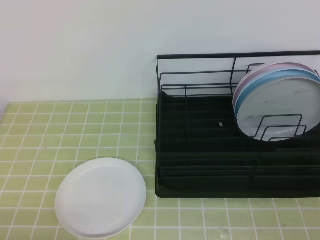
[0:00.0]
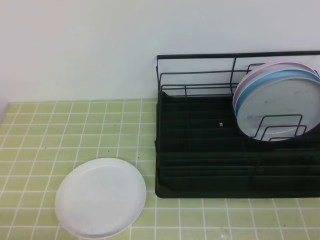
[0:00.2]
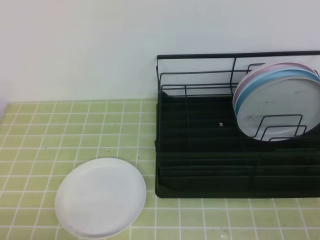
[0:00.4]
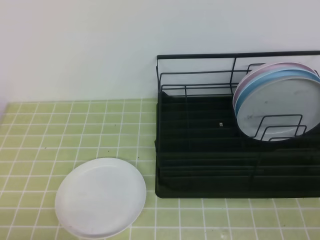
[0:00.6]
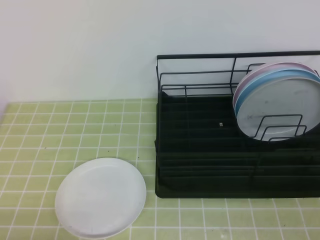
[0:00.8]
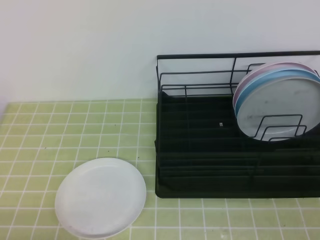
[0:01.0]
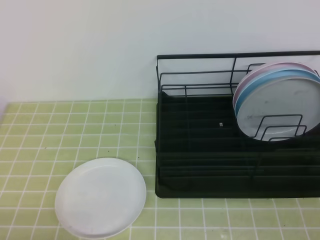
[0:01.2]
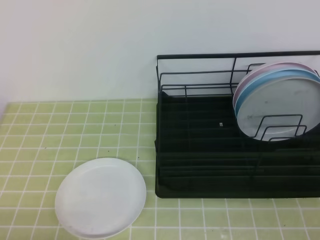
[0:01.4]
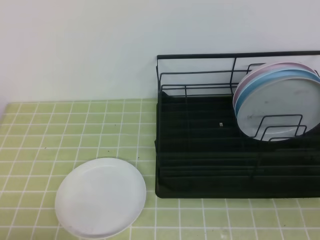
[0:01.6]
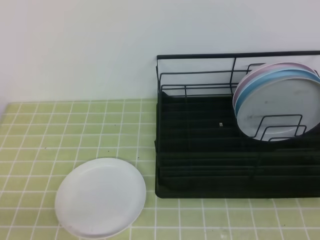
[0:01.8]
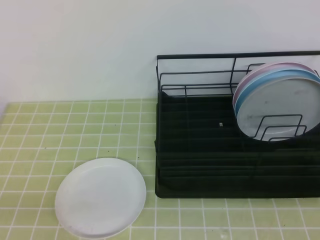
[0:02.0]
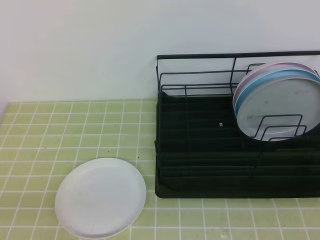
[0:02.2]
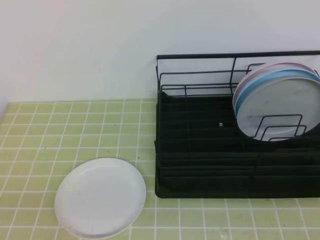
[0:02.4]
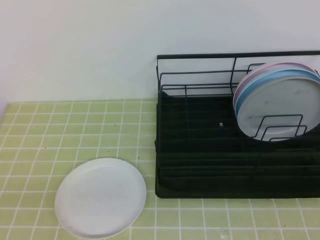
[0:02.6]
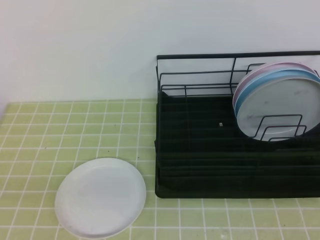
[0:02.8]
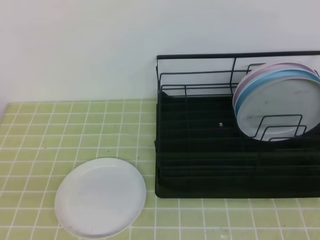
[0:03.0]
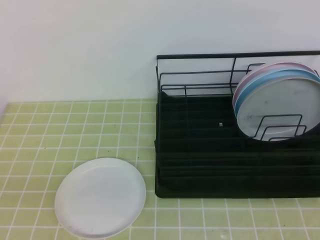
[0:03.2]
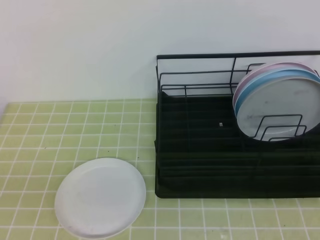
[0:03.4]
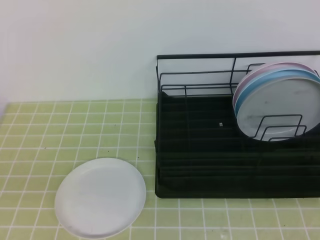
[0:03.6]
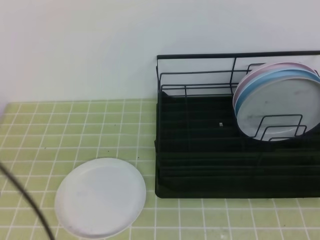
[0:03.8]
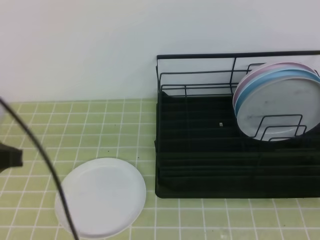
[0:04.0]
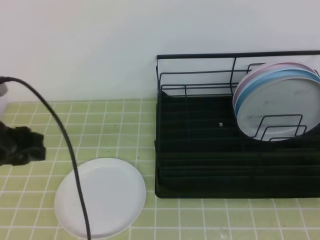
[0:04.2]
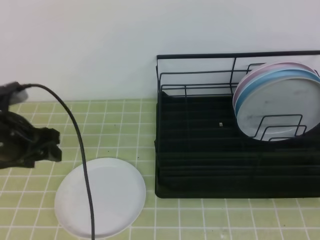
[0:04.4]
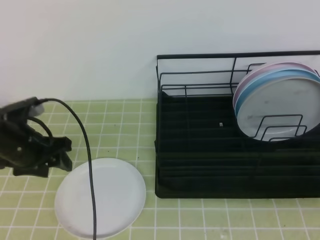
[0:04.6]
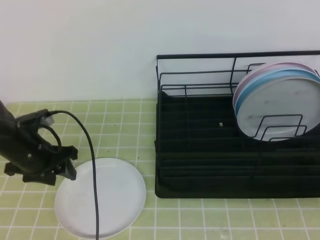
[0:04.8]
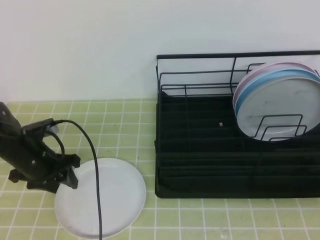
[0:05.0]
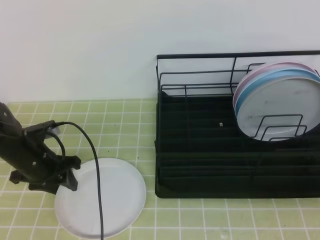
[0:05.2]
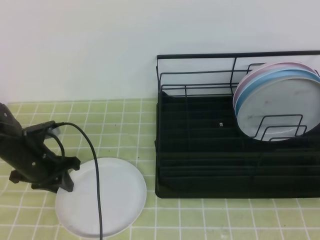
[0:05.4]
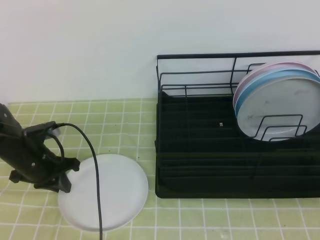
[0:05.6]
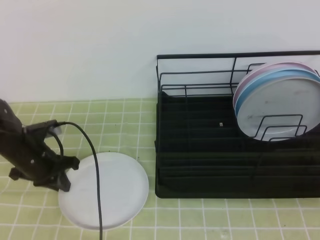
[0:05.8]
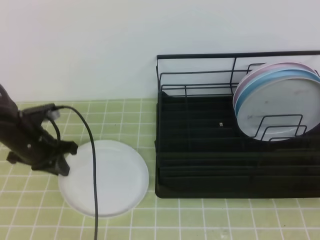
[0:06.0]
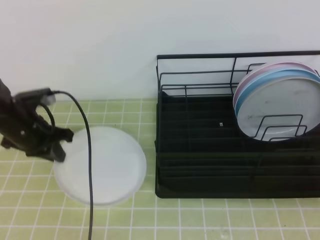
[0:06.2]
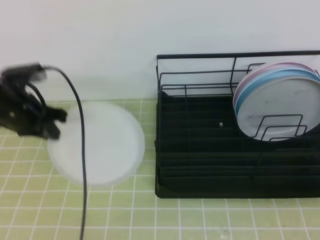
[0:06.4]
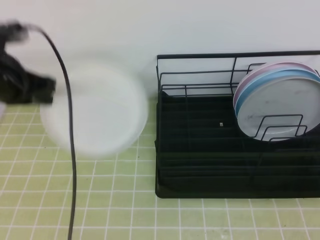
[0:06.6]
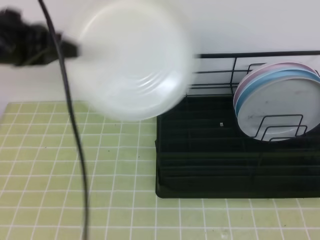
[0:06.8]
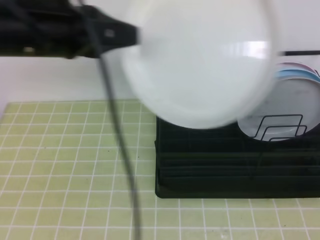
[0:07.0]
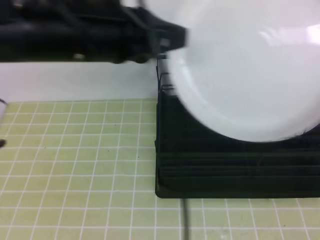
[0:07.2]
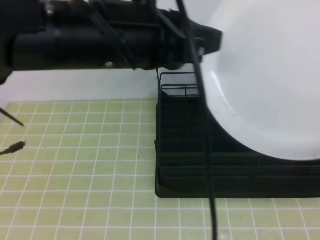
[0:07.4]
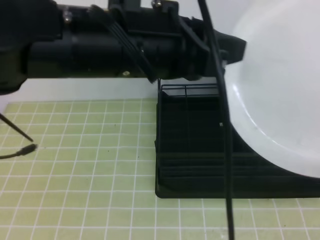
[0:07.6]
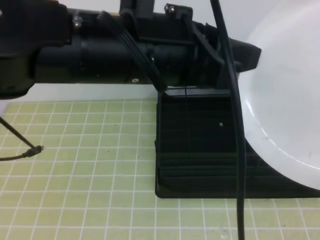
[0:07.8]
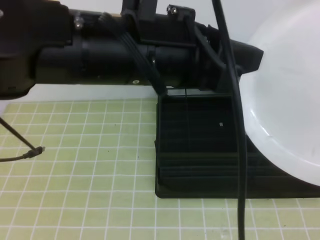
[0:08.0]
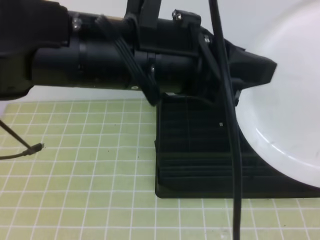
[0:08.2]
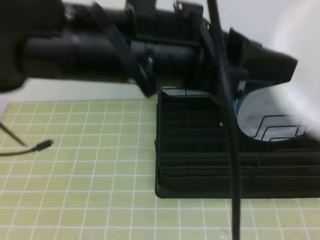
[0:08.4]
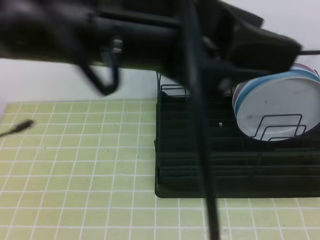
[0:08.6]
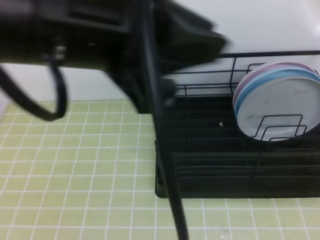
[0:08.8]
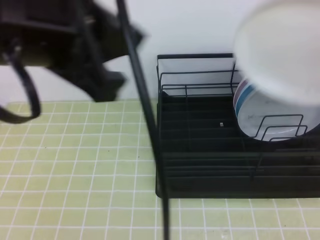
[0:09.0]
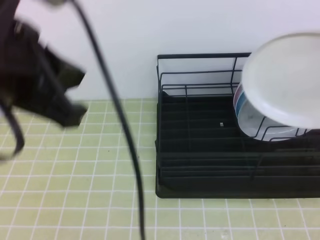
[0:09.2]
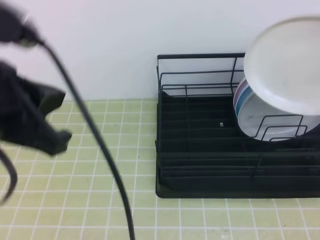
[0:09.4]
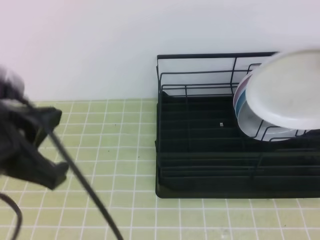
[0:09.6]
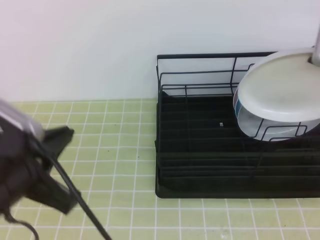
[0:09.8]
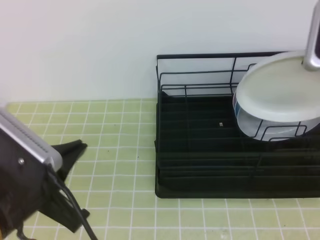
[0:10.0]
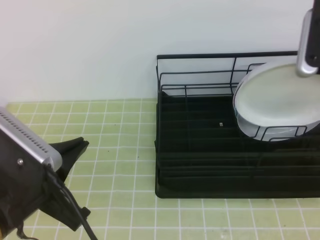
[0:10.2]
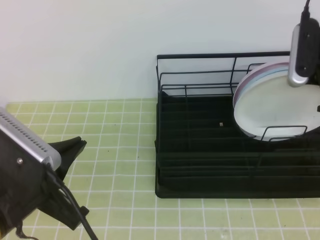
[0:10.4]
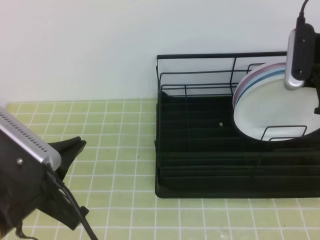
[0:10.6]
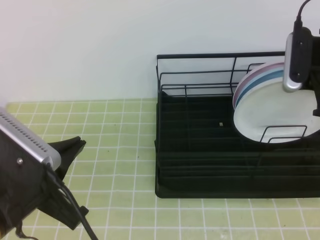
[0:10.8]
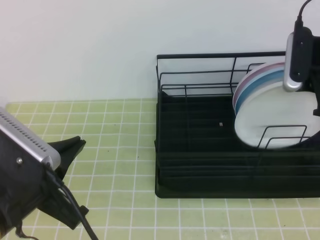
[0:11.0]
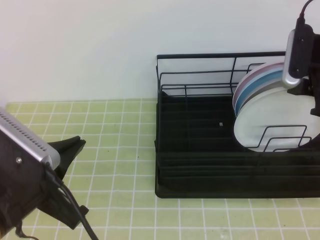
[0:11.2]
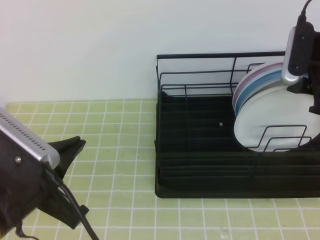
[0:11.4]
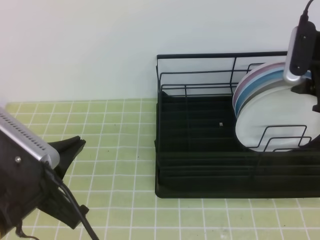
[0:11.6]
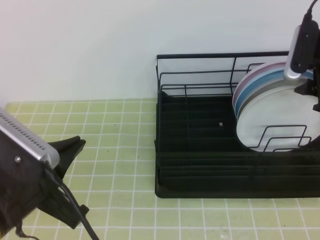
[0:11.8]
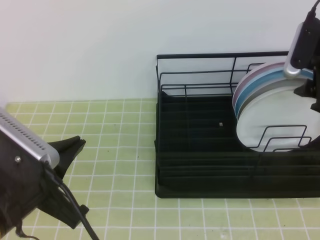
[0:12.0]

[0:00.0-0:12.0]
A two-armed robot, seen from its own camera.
Step, 0:00.0 to 0:04.6: Left grab the white plate.
Step, 0:06.8 to 0:09.6: Right place it at the front of the shelf.
0:03.0 to 0:04.4: The left gripper travels forward by roughly 25 cm, and opens up.
0:04.4 to 0:06.0: The left gripper goes about 10 cm downward and forward, and closes its fingers.
0:06.0 to 0:07.6: The left gripper heads upward, to the right and backward, covering roughly 35 cm; the right gripper goes approximately 5 cm upward, and opens up.
0:07.6 to 0:09.0: The left gripper moves to the left and backward, approximately 10 cm, and opens and closes again, while the right gripper is displaced forward and upward by roughly 15 cm, and closes its fingers.
0:09.0 to 0:10.4: The right gripper shifts approximately 15 cm forward and downward, while the left gripper travels downward by about 15 cm.
0:10.4 to 0:12.0: The right gripper opens.

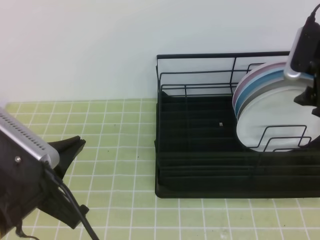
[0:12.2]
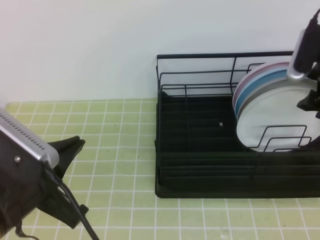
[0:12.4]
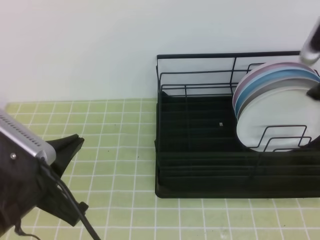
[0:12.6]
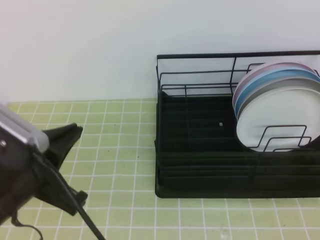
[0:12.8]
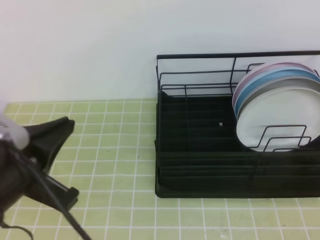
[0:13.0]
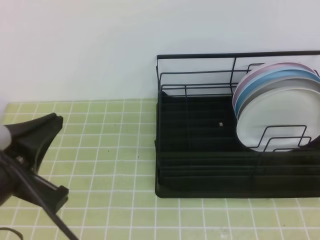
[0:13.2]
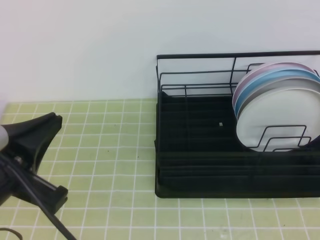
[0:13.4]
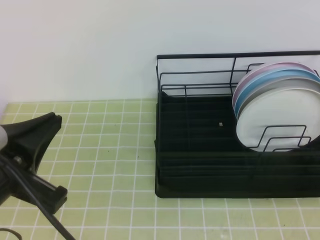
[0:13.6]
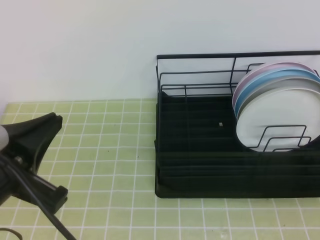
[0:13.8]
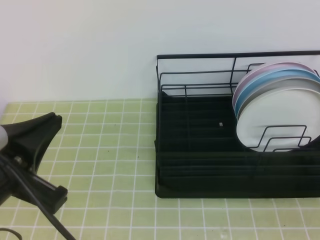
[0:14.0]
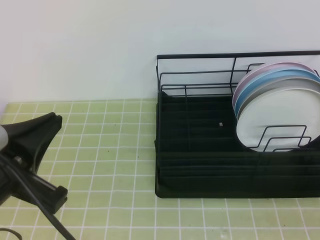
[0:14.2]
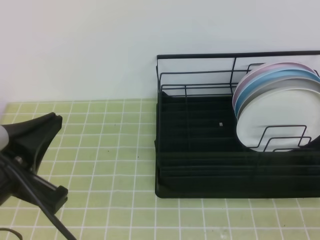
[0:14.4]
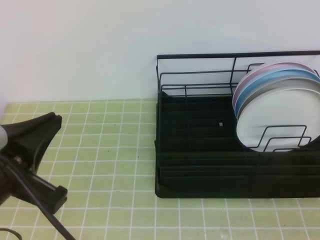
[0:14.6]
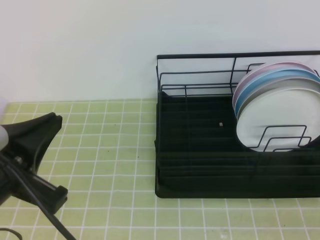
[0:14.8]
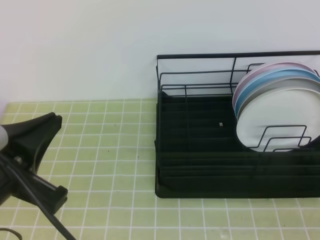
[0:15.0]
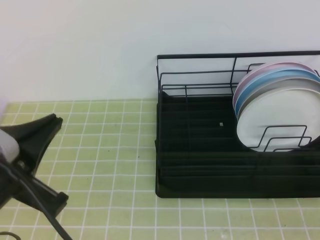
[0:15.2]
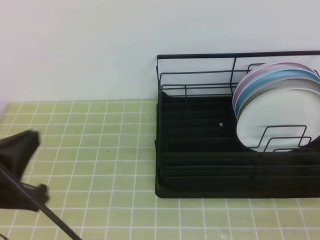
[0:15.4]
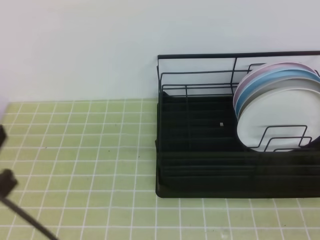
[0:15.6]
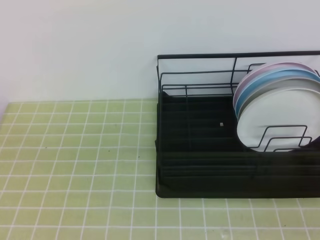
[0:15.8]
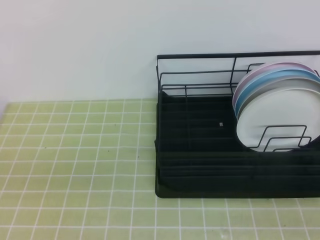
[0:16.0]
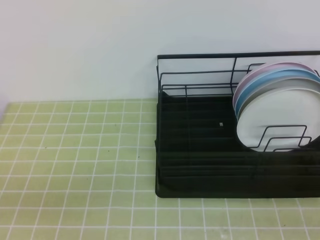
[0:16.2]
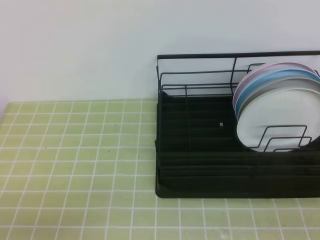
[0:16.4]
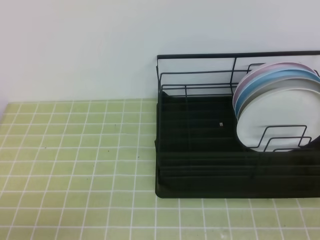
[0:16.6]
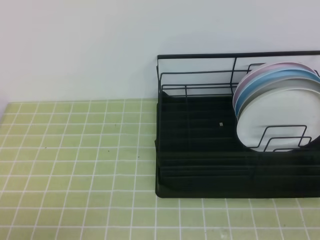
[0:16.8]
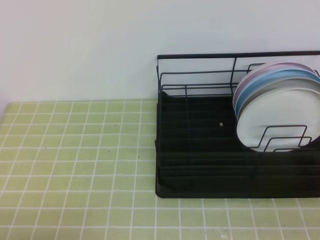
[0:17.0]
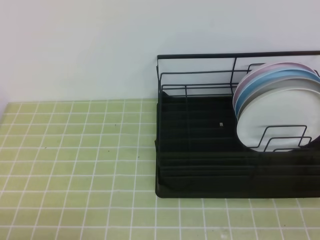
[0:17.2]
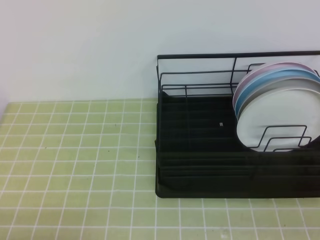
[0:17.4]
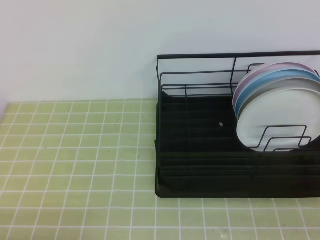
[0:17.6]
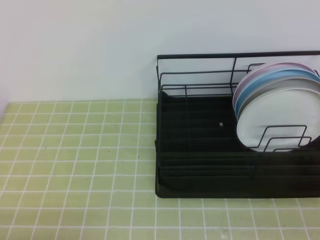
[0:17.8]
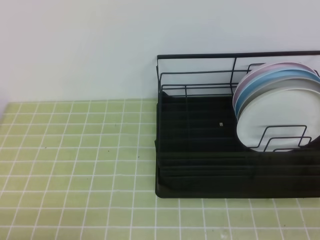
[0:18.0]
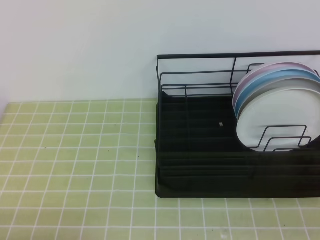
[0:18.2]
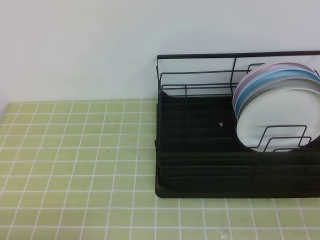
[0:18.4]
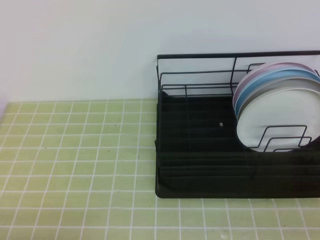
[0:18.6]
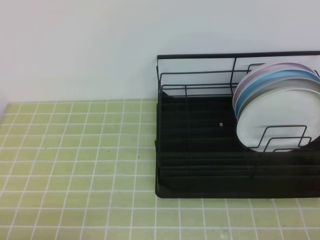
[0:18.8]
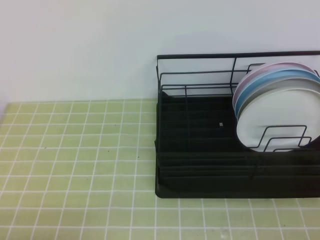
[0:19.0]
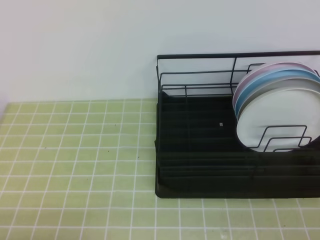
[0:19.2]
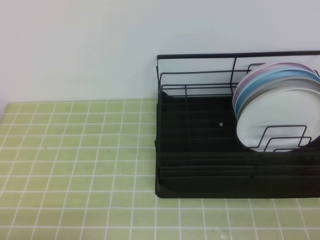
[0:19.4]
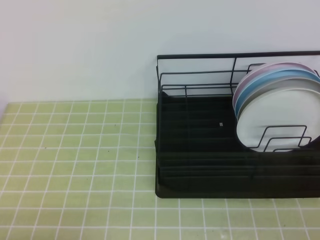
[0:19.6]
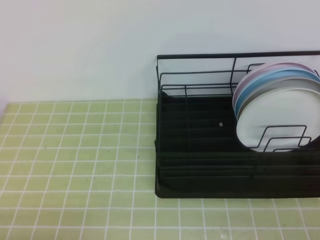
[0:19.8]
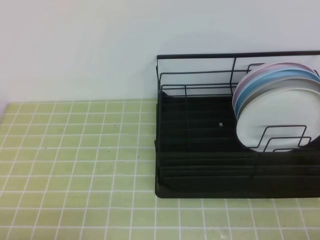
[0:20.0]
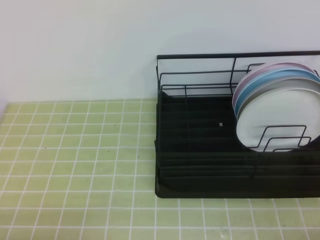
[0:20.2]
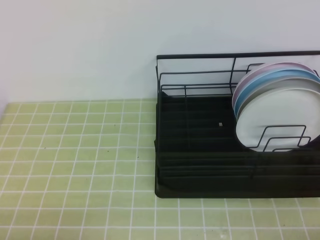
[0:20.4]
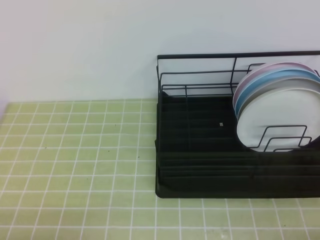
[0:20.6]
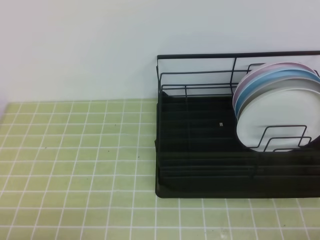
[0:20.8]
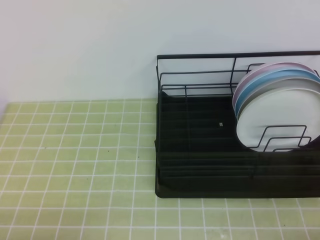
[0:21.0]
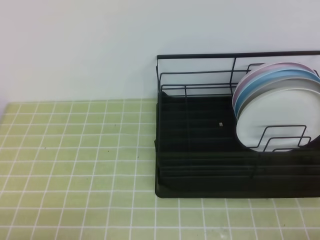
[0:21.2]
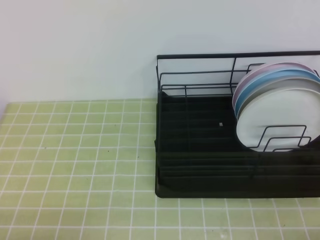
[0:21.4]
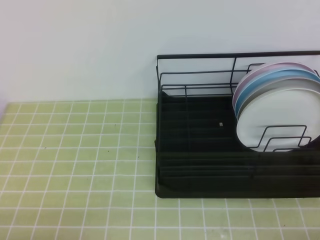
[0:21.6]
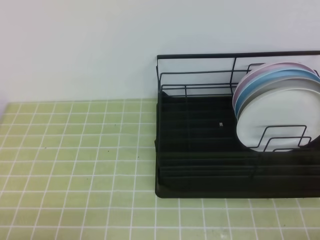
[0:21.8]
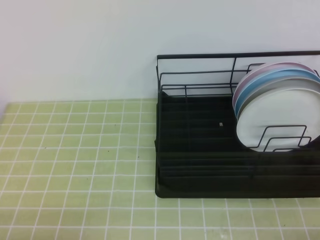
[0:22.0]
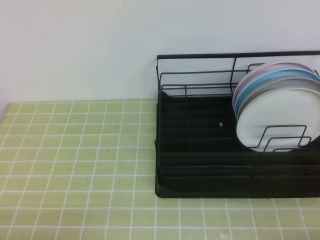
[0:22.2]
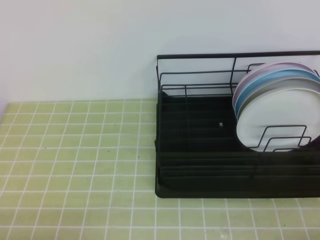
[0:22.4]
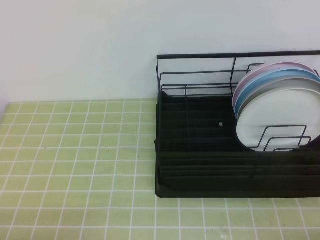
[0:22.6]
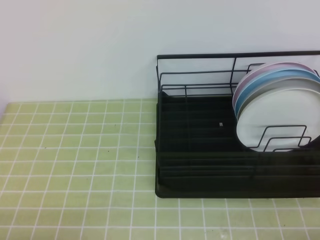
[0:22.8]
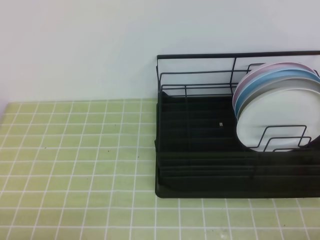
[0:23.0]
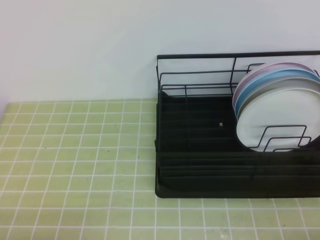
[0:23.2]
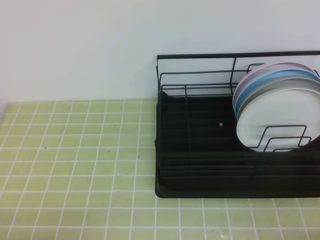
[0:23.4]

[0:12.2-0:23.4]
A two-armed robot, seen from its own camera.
0:12.2 to 0:13.8: The right gripper shifts approximately 30 cm backward, and closes.
0:13.8 to 0:15.4: The grippers move only a little.
0:15.4 to 0:17.0: The left gripper goes about 15 cm downward, backward and to the left.
0:21.8 to 0:23.4: Both grippers stay about where they are.
